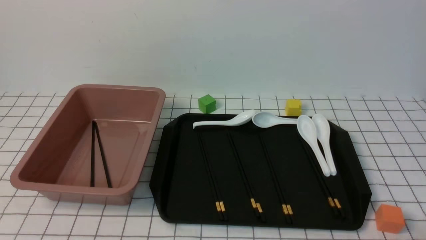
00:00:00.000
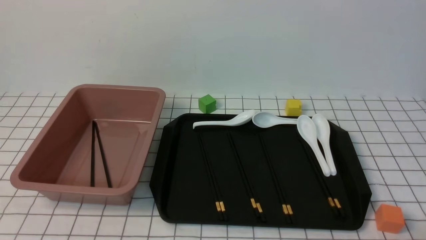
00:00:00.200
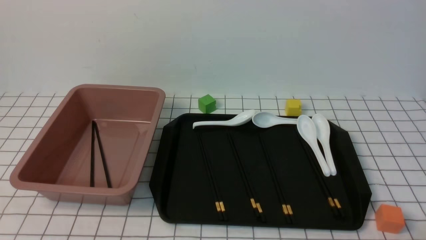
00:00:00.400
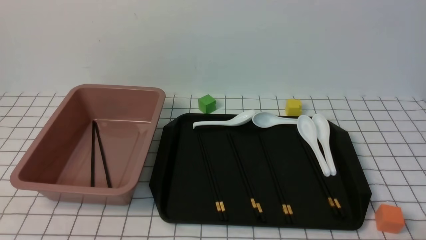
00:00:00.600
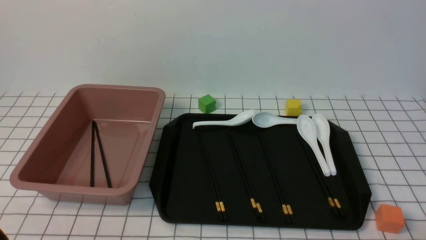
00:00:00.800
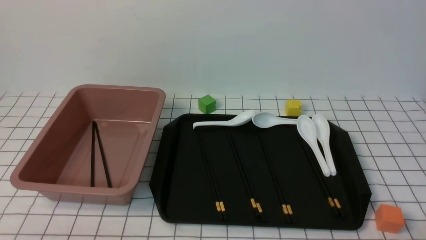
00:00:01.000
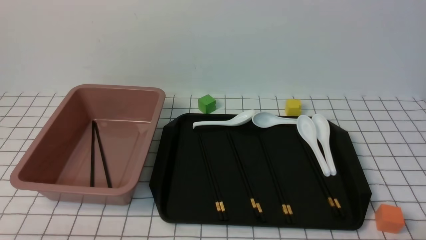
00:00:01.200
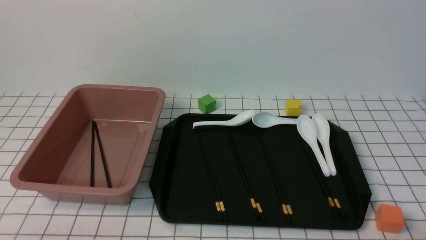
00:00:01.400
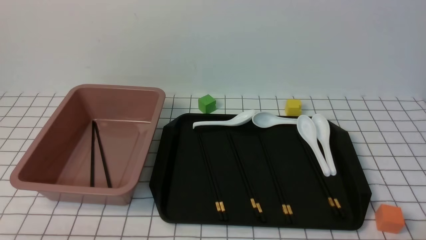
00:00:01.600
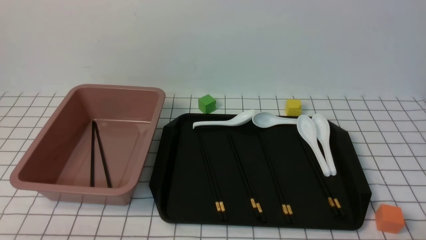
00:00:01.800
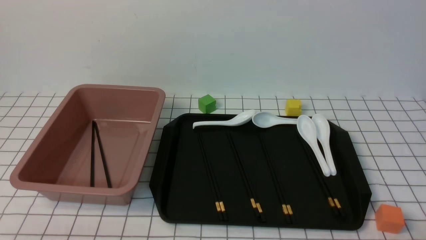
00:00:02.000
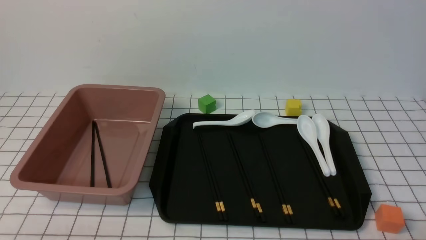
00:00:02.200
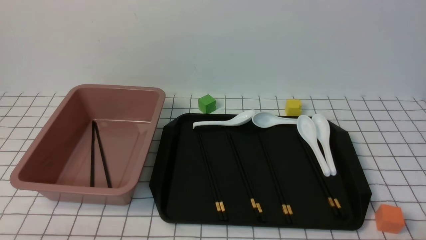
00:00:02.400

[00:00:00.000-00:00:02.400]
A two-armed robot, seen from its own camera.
00:00:01.200 to 00:00:02.400: Neither gripper changes place.
